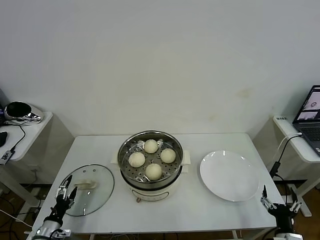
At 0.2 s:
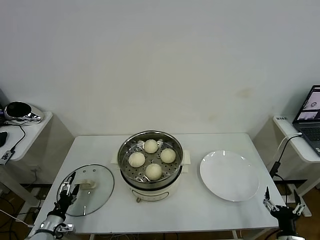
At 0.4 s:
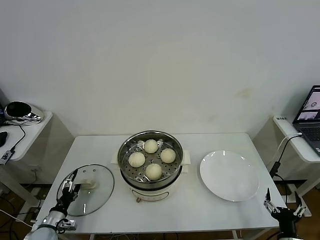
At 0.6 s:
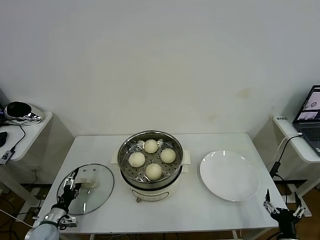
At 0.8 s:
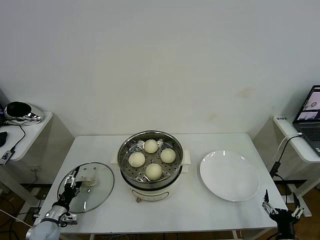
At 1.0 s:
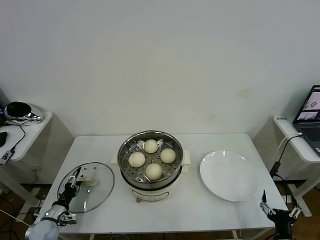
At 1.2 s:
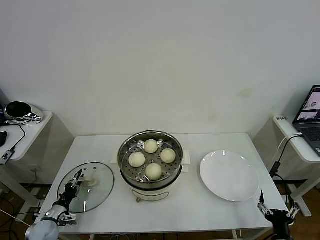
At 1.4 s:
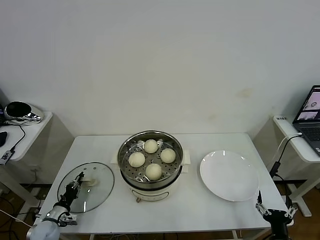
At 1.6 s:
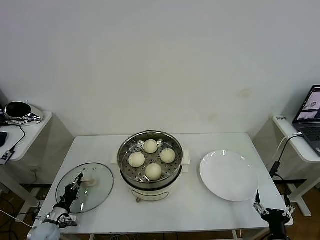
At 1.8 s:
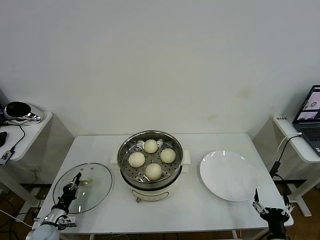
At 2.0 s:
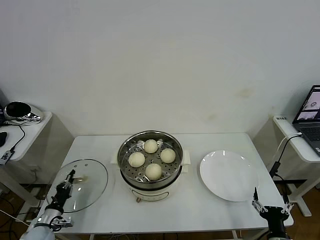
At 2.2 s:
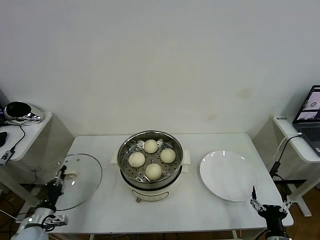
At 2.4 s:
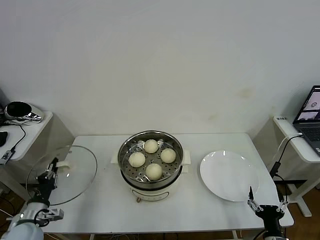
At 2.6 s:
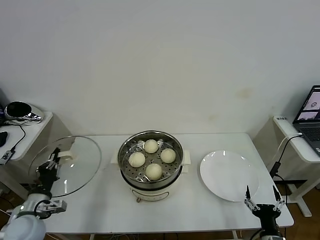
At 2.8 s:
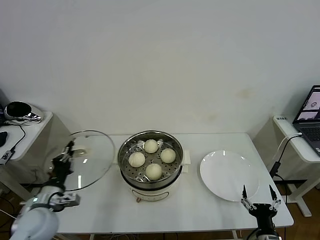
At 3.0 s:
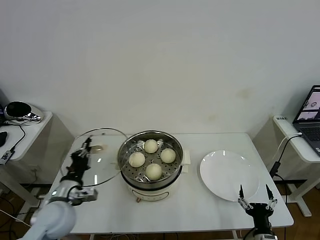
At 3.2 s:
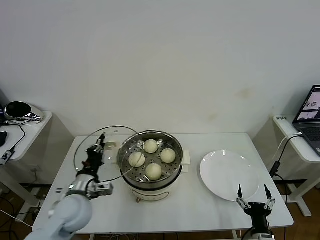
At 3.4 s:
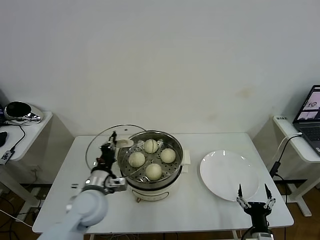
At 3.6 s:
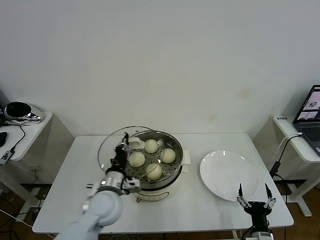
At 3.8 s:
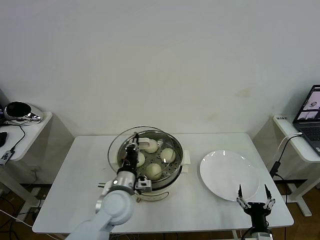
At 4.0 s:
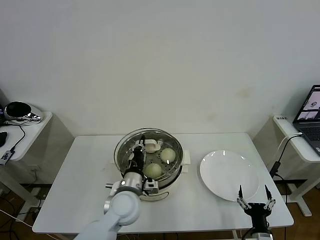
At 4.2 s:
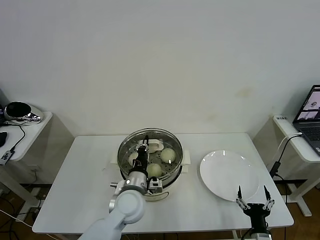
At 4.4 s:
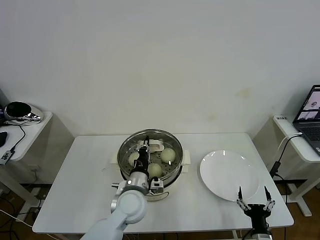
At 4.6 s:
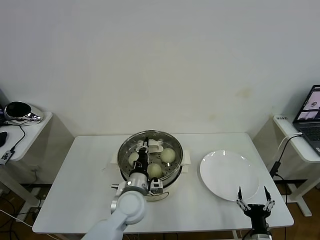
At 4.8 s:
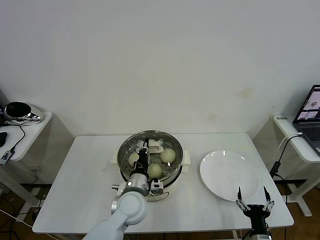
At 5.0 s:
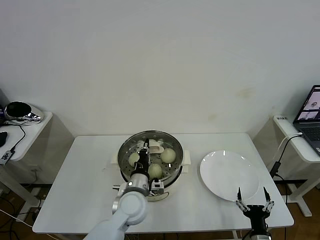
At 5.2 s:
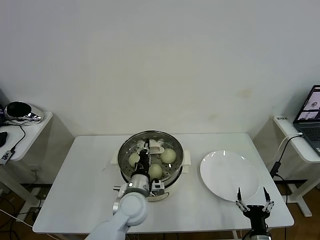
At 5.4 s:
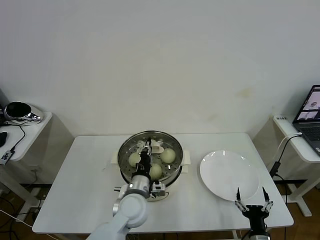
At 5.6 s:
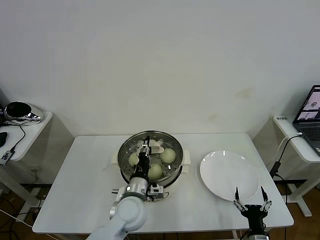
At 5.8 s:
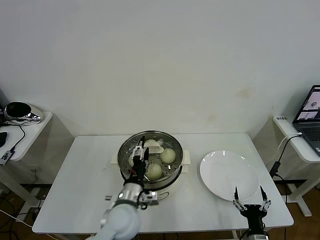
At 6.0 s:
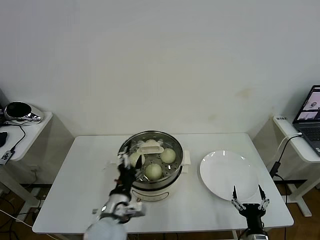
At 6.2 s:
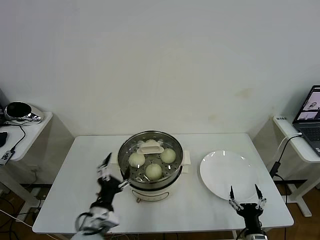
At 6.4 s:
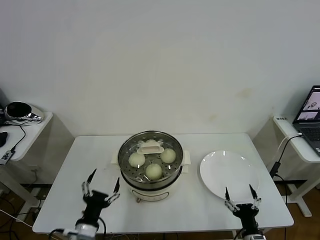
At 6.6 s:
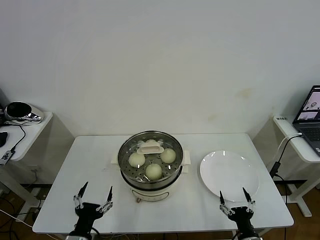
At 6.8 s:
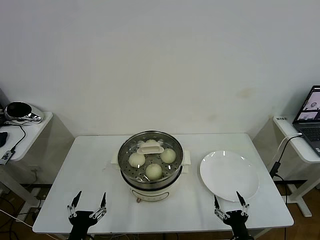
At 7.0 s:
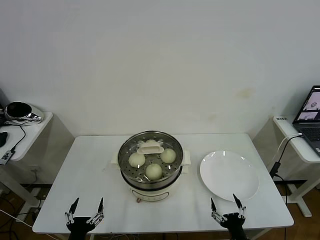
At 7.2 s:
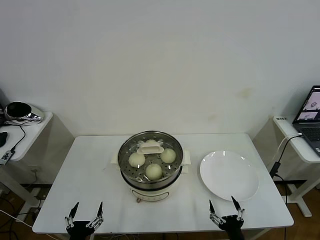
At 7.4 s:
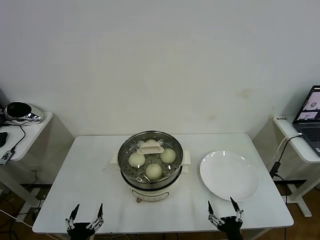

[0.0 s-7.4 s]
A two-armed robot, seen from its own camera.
Task of the whole recording: take steamed baozi put them in steamer then cover it.
Step, 1.8 to 6.0 s: Place the pot lid on the steamer with left gripper.
0.0 to 1.4 s: The left gripper heads forward, covering about 5 cm, and closes.
1.4 to 3.0 s: The left gripper travels upward and to the right by some 25 cm.
3.0 to 4.4 s: The left gripper shifts roughly 20 cm to the right.
4.4 to 6.0 s: The left gripper goes about 5 cm backward, and opens.
6.0 to 7.4 s: The right gripper moves some 5 cm, while the left gripper shifts about 25 cm backward, to the left and downward.
